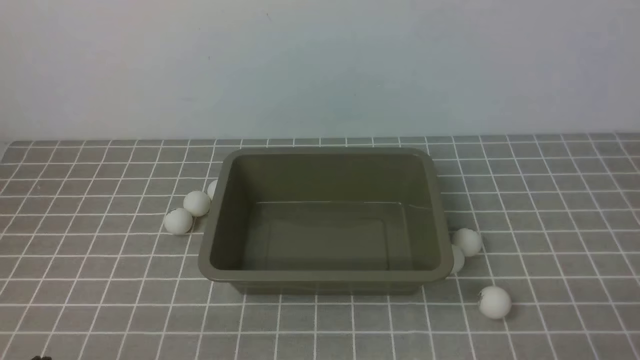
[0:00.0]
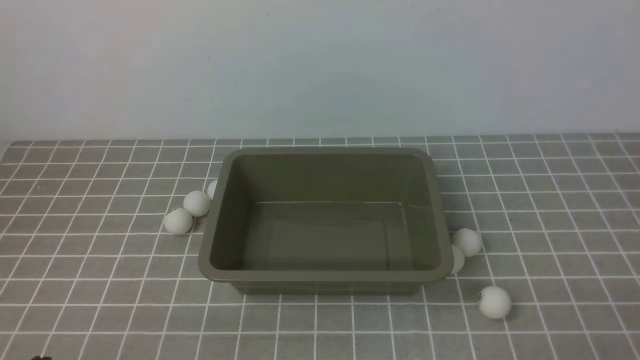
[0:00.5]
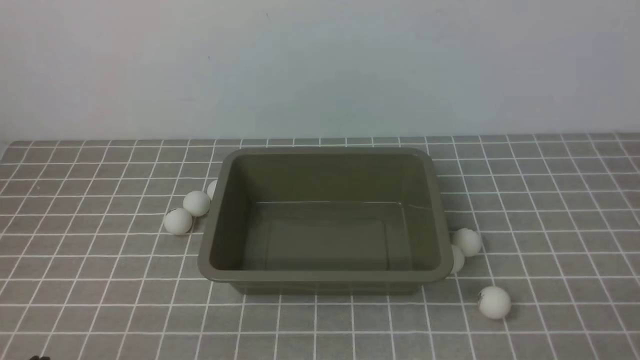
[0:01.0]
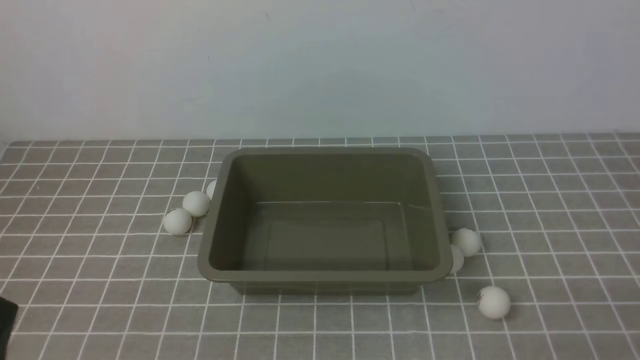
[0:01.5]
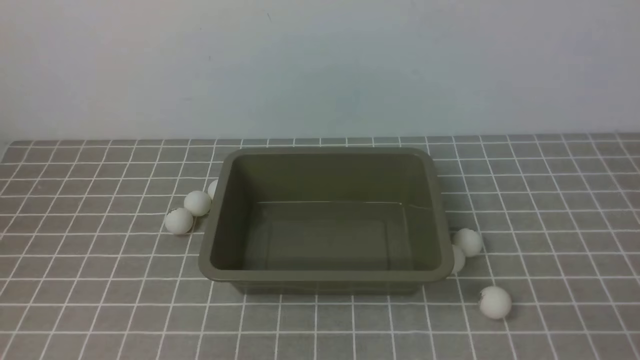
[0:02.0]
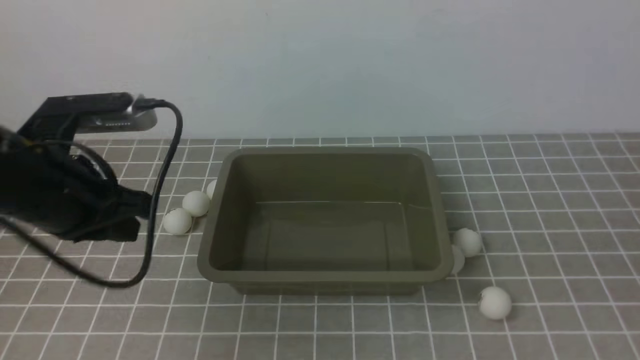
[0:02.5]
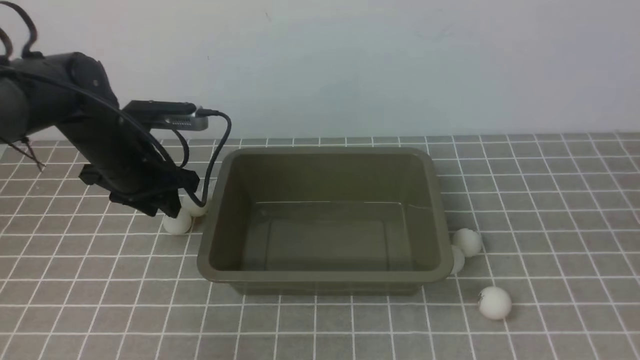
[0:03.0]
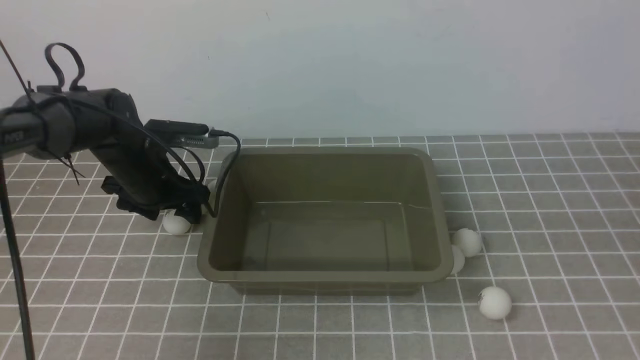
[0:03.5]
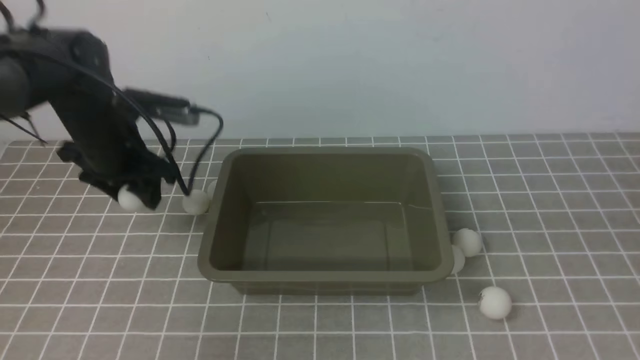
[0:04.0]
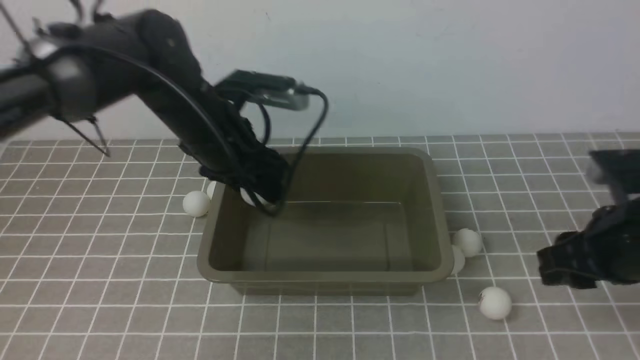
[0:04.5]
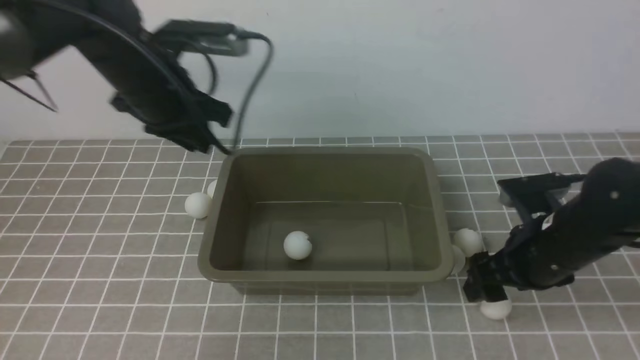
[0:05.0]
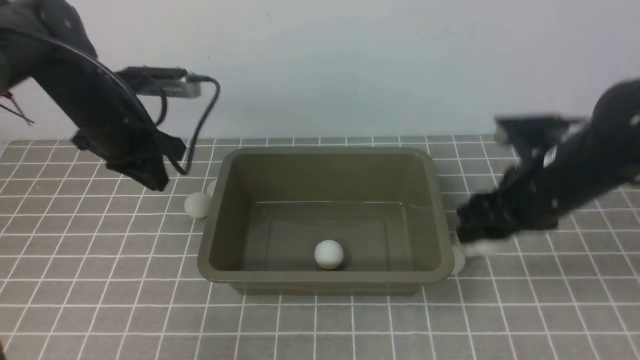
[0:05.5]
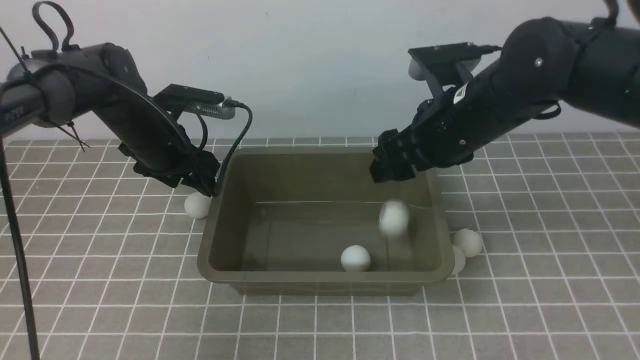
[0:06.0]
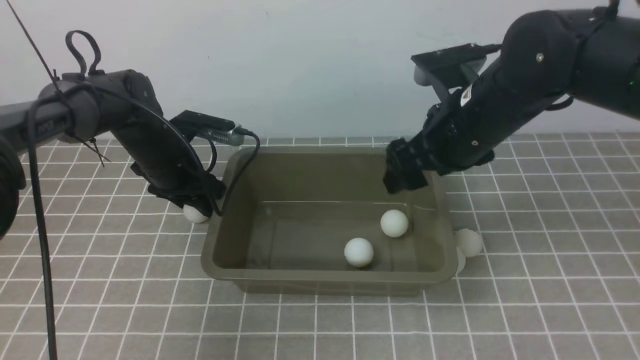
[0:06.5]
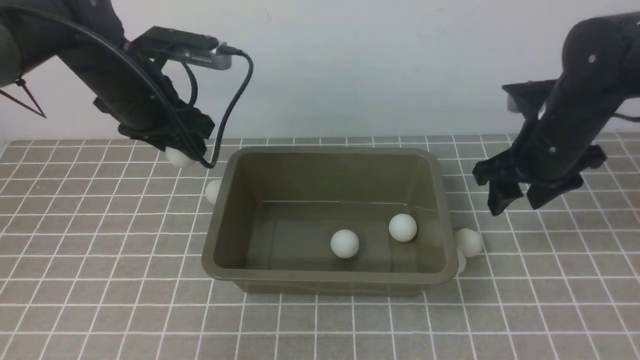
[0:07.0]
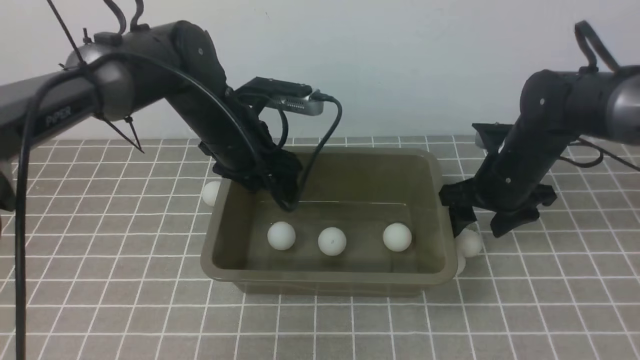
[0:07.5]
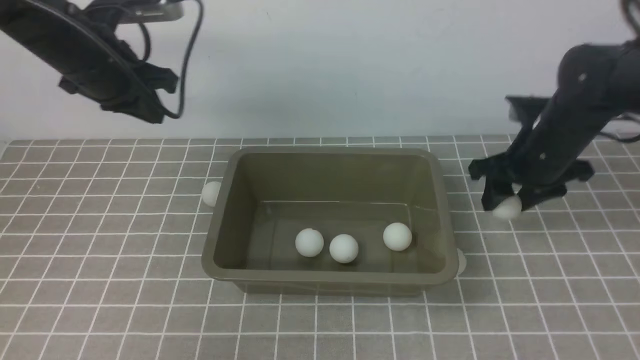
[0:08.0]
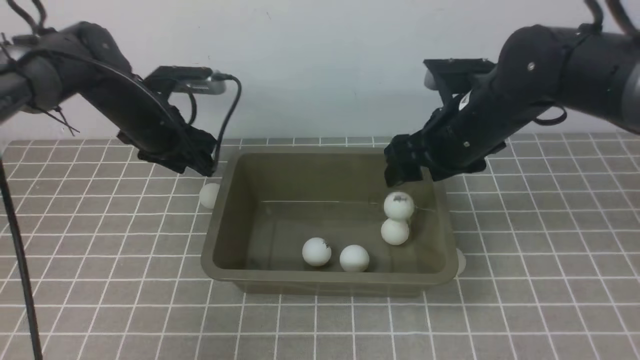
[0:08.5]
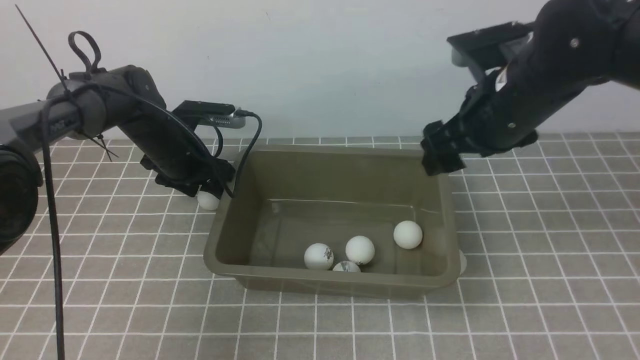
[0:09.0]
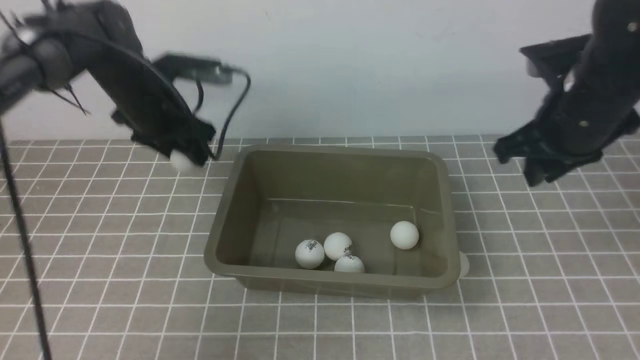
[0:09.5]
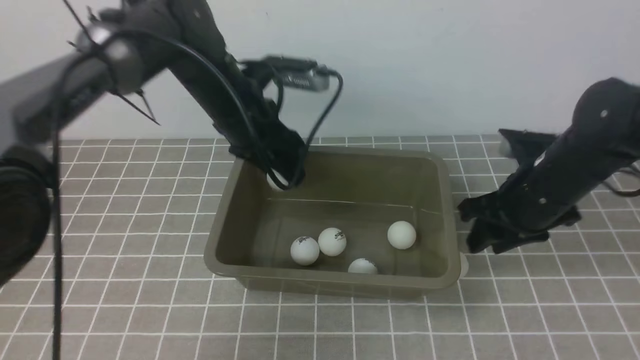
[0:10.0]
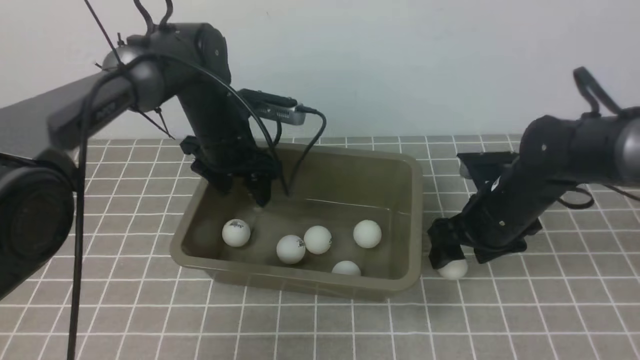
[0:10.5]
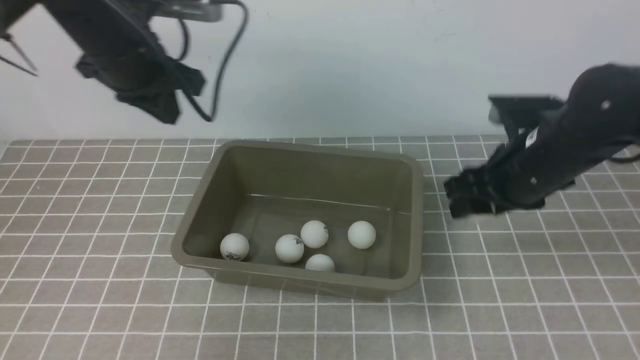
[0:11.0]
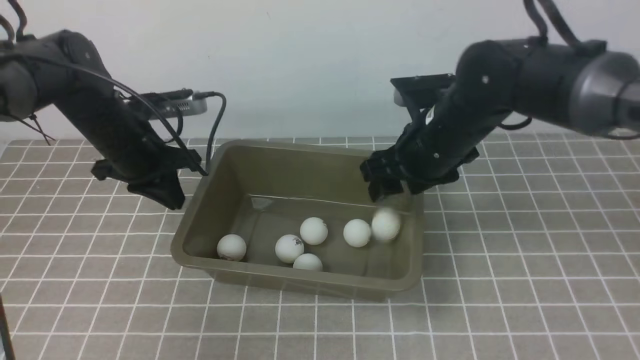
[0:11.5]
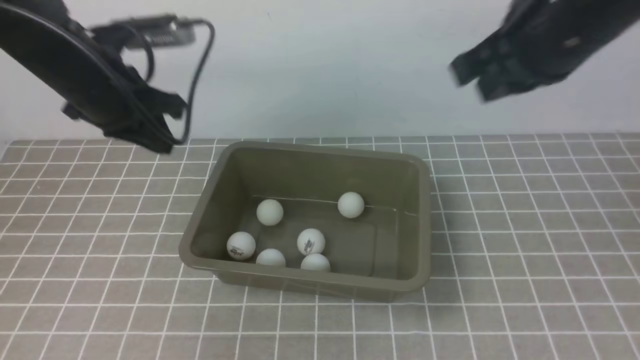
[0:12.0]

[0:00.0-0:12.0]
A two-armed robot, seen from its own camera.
Step, 0:00.0 to 0:04.0: use the left arm to clamp the table tennis ball closest to it.
Step, 0:05.0 to 0:05.5: use the right arm to clamp the table tennis ball closest to it.
Step, 0:07.0 to 0:07.5: use the left arm to put the table tennis ball into the box.
Step, 0:09.0 to 0:09.5: use the left arm to clamp the table tennis ball closest to it.
Step, 0:11.0 to 0:11.5: use the right arm to put the table tennis ball into the box.
0:02.0 to 0:04.0: The left gripper shifts some 30 cm forward, and opens up; the right gripper moves upward and forward, roughly 15 cm.
0:04.0 to 0:06.0: The left gripper travels downward by about 5 cm, travels to the right and back again, some 10 cm each way, and closes, then reopens; the right gripper heads forward and to the left, covering some 25 cm, and opens.
0:06.0 to 0:08.0: The left gripper is displaced upward by approximately 10 cm, reaches about 10 cm to the right, then returns, and closes up. Meanwhile the right gripper goes roughly 10 cm to the right and downward.
0:08.0 to 0:10.0: The left gripper shifts approximately 15 cm to the right, and opens up. Meanwhile the right gripper travels upward and back again, roughly 5 cm each way, and opens, then closes again.
0:10.0 to 0:12.0: The right gripper travels upward by about 20 cm, while the left gripper travels to the left, upward and backward by roughly 15 cm, and closes up.

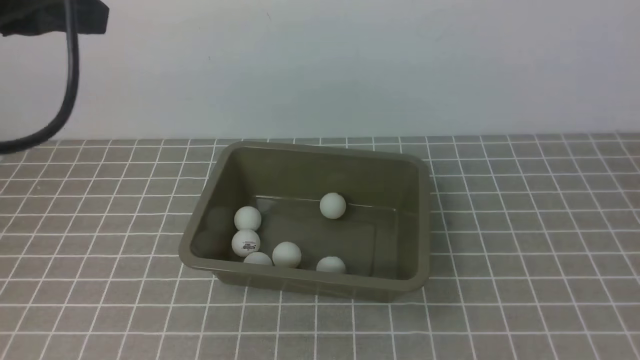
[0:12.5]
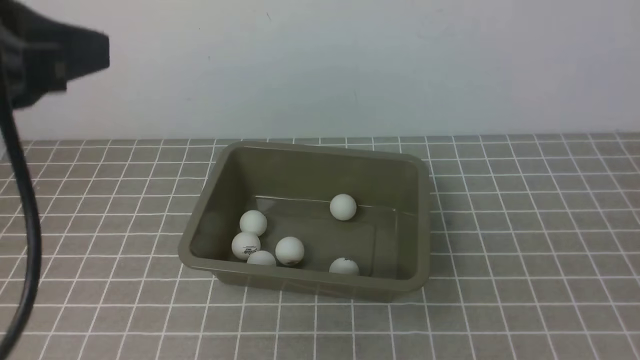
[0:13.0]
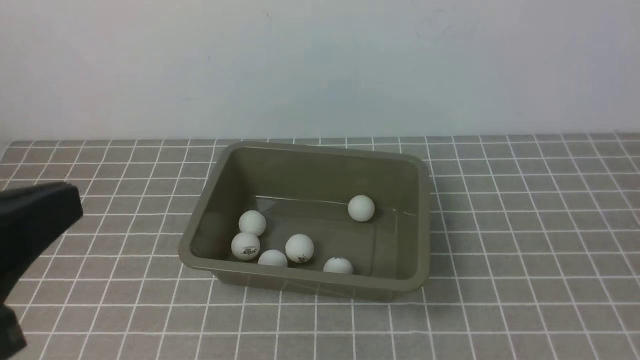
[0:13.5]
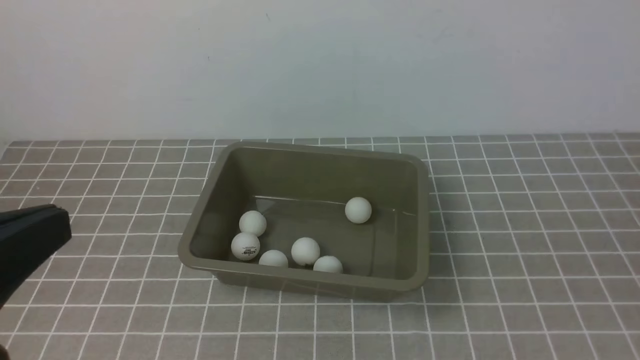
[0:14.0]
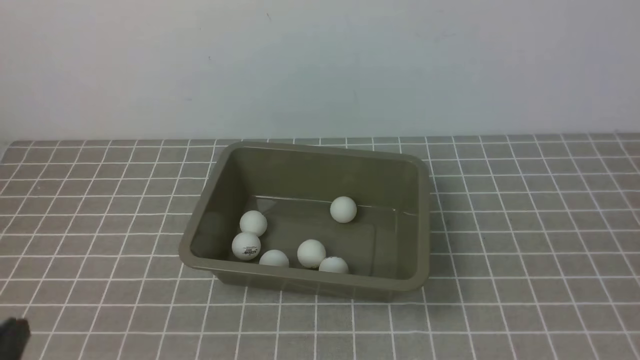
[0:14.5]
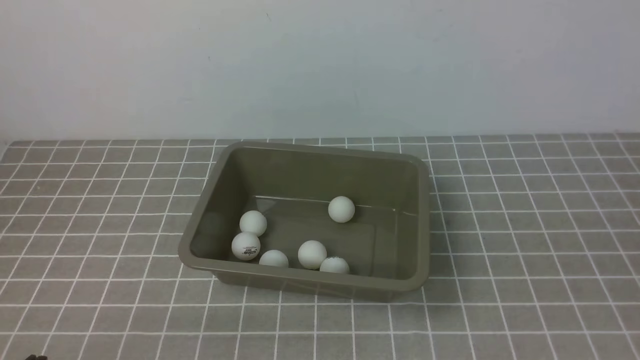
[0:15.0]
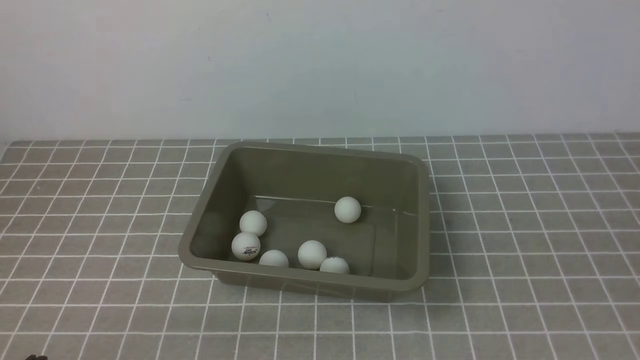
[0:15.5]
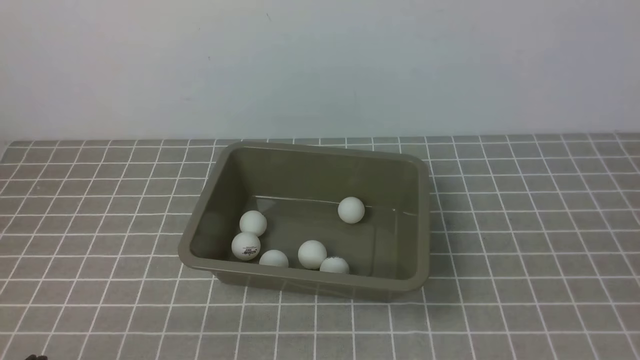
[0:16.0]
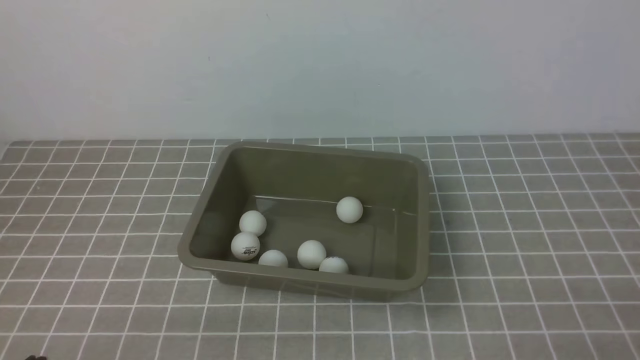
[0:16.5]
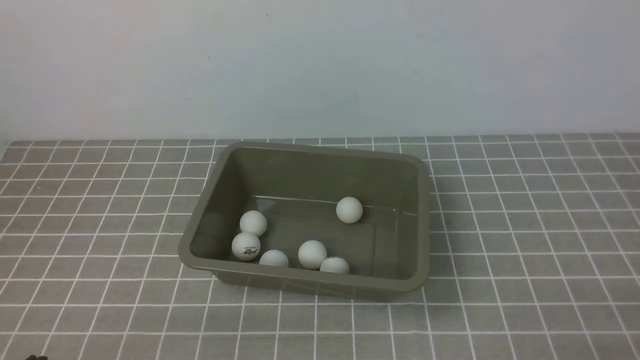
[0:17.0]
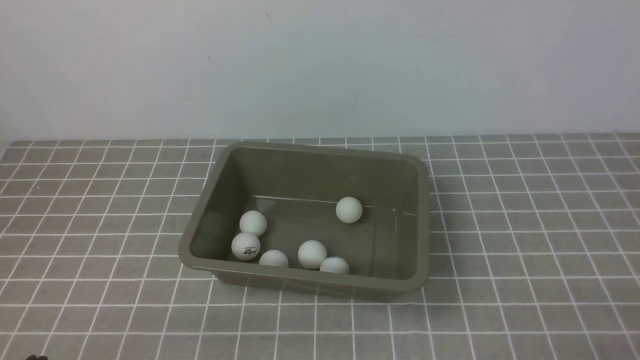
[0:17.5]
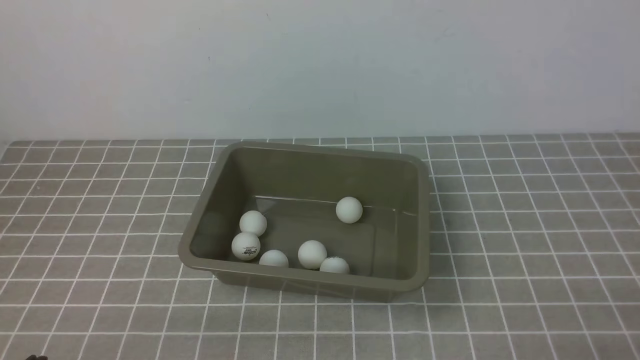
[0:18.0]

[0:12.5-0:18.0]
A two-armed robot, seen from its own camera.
0:12.5 to 0:14.5: The right gripper shifts roughly 5 cm downward. Meanwhile the left gripper is displaced downward and backward by about 30 cm.
